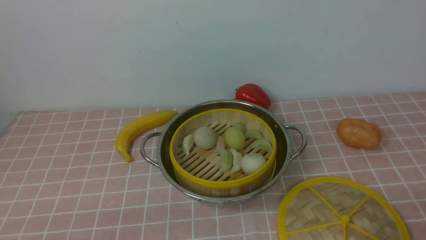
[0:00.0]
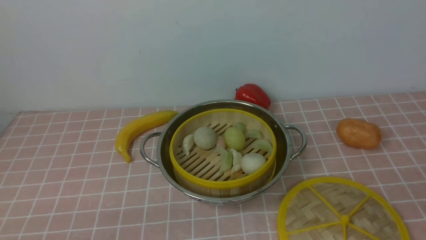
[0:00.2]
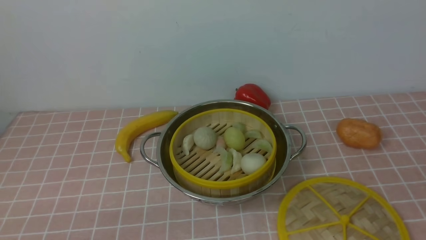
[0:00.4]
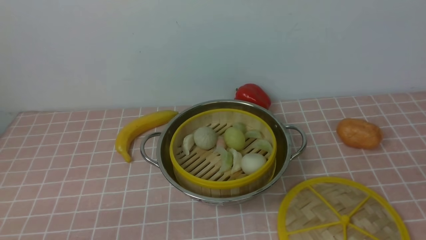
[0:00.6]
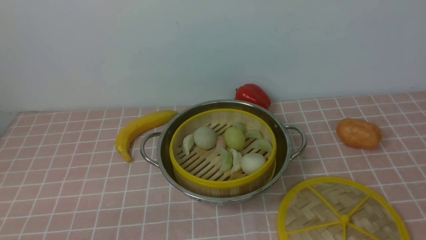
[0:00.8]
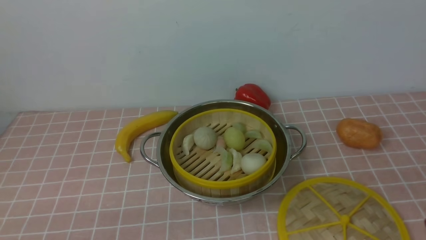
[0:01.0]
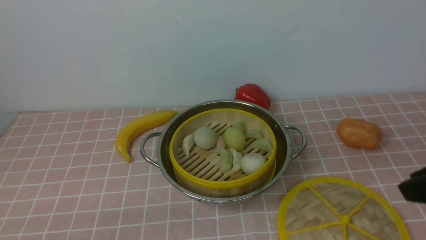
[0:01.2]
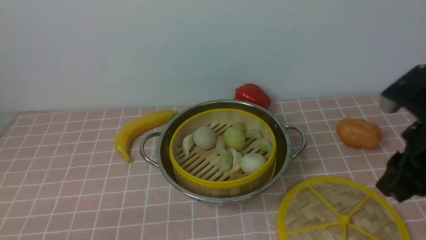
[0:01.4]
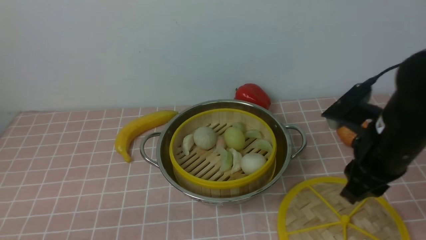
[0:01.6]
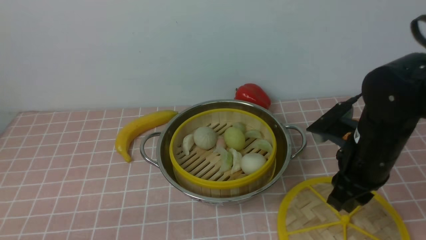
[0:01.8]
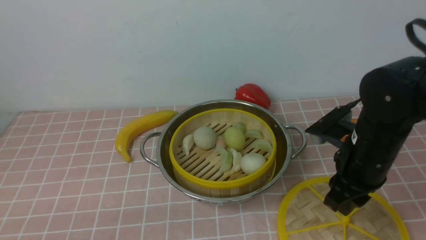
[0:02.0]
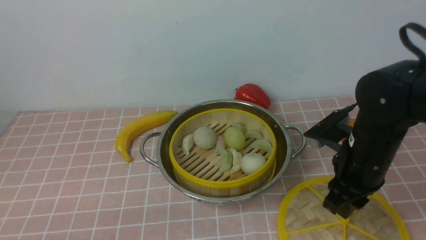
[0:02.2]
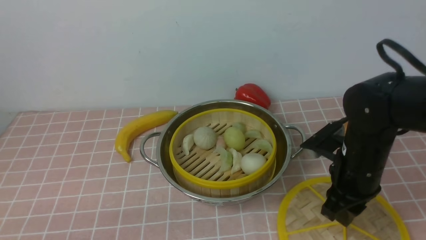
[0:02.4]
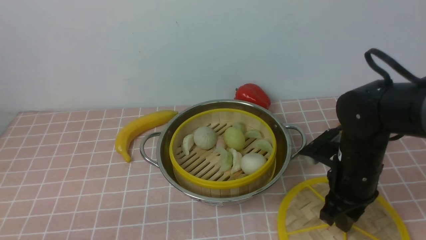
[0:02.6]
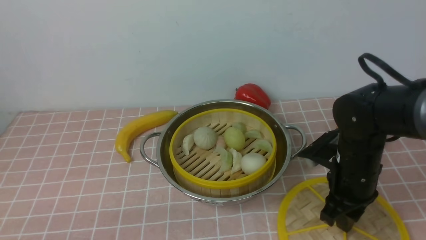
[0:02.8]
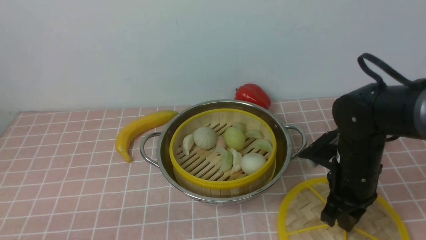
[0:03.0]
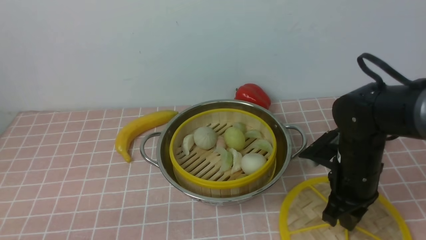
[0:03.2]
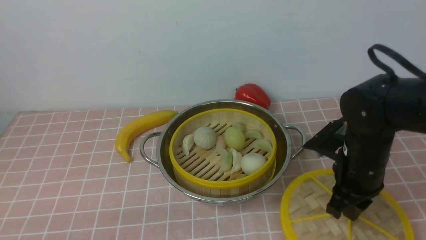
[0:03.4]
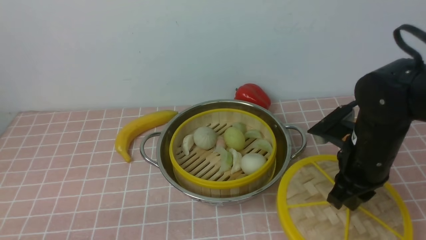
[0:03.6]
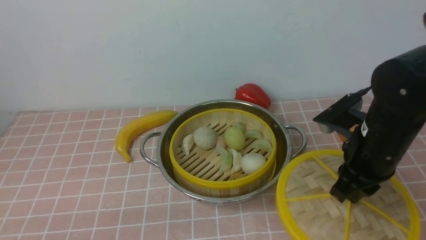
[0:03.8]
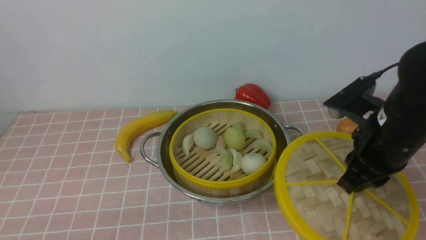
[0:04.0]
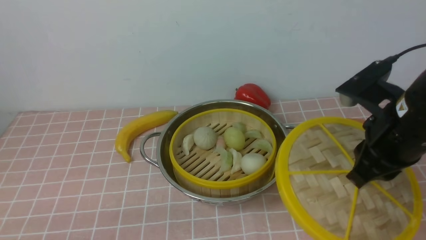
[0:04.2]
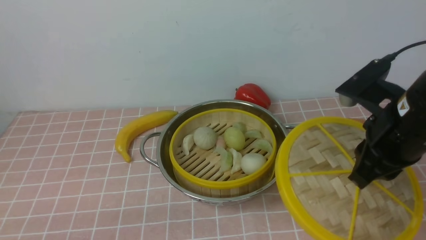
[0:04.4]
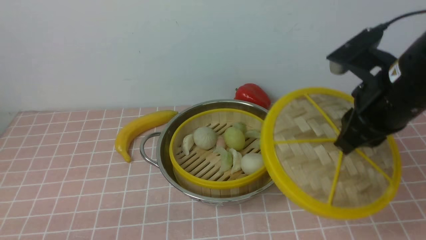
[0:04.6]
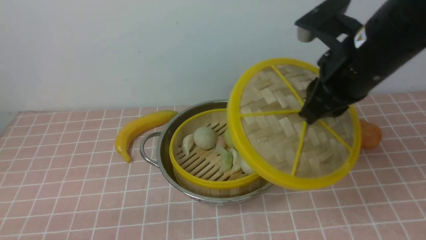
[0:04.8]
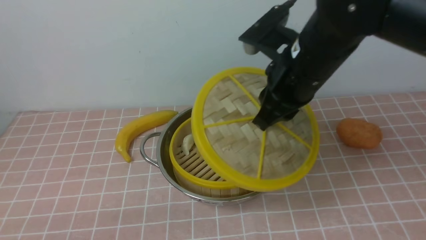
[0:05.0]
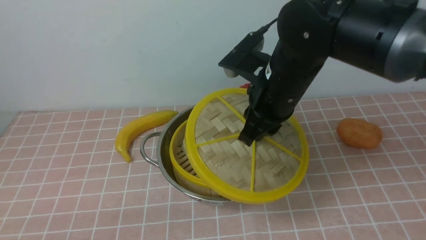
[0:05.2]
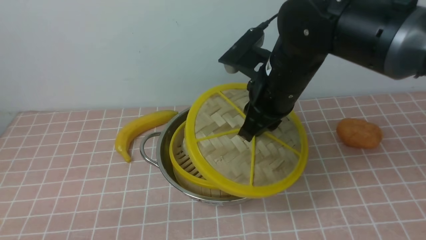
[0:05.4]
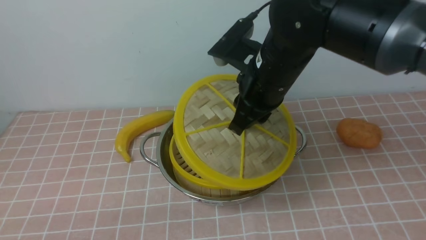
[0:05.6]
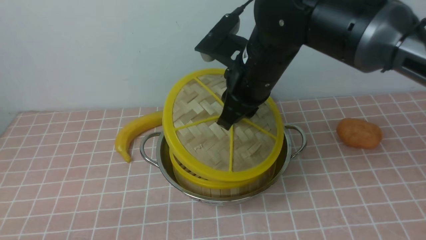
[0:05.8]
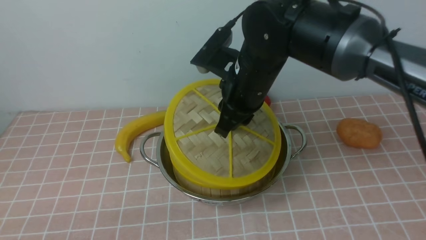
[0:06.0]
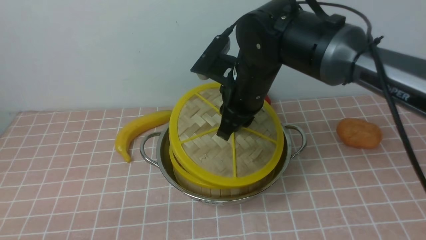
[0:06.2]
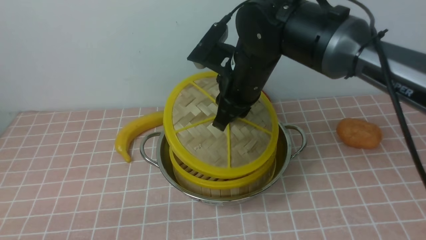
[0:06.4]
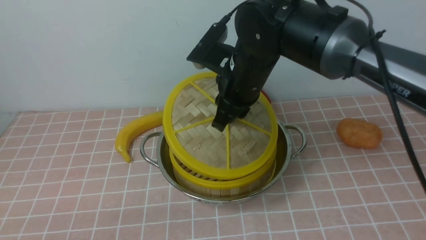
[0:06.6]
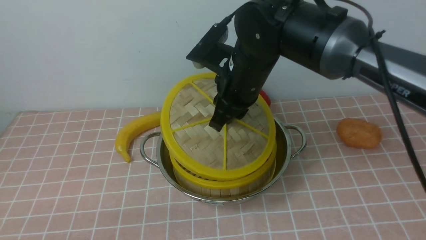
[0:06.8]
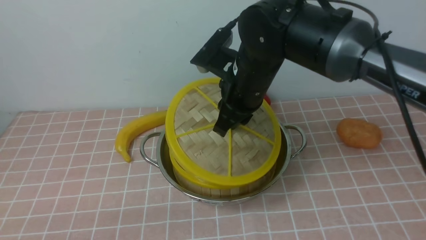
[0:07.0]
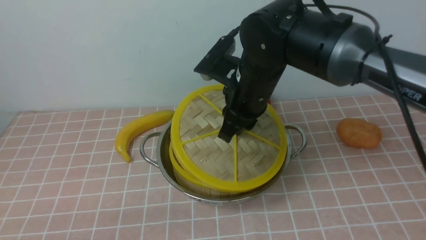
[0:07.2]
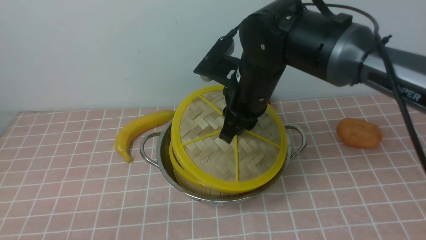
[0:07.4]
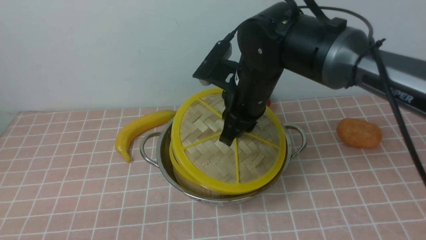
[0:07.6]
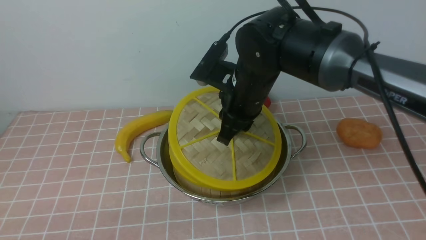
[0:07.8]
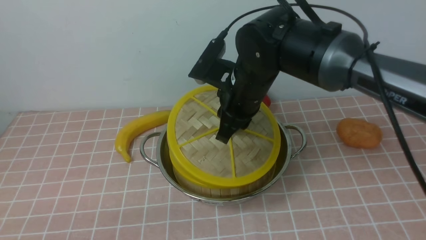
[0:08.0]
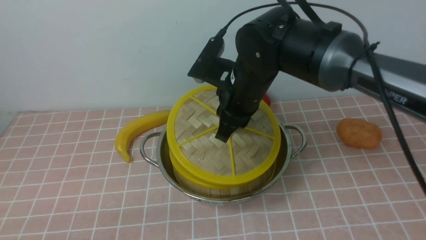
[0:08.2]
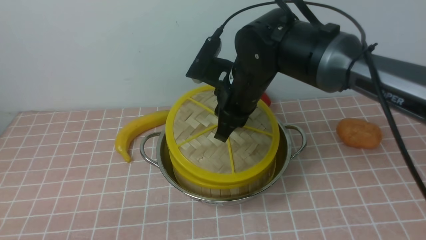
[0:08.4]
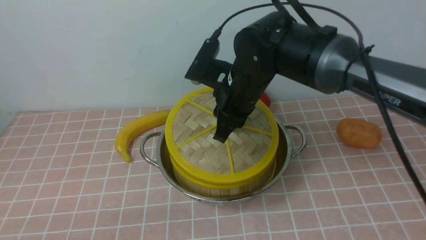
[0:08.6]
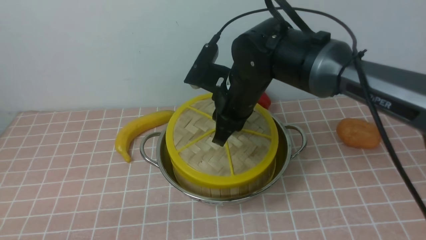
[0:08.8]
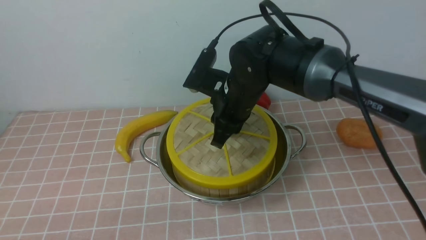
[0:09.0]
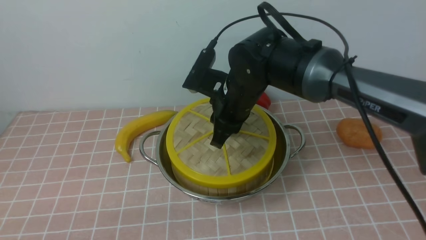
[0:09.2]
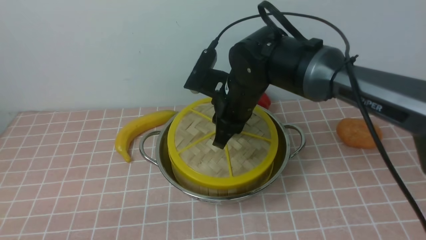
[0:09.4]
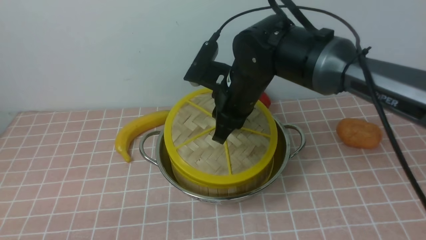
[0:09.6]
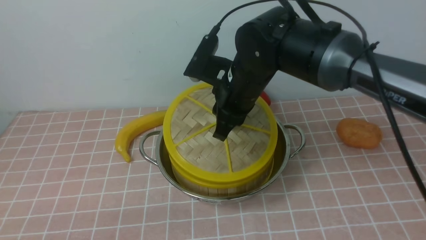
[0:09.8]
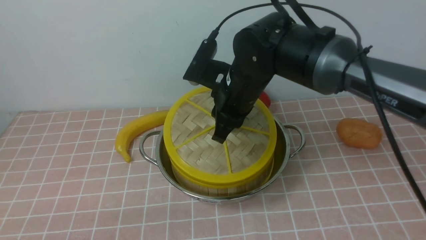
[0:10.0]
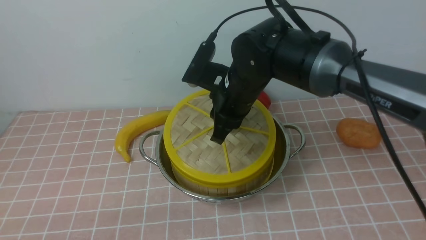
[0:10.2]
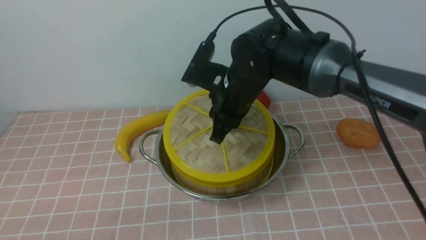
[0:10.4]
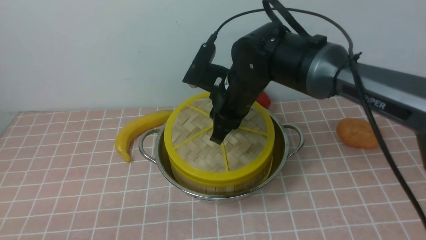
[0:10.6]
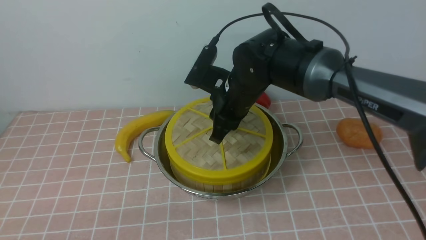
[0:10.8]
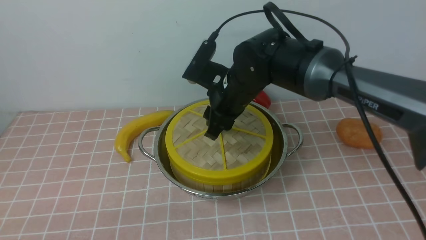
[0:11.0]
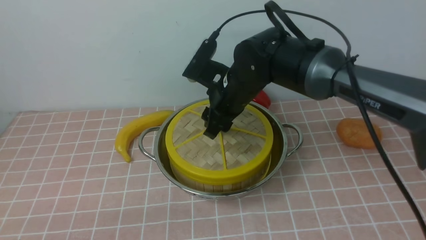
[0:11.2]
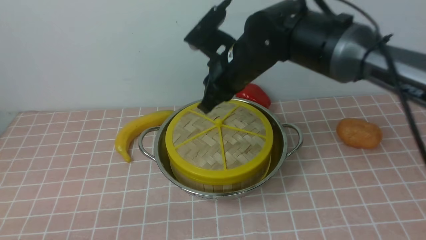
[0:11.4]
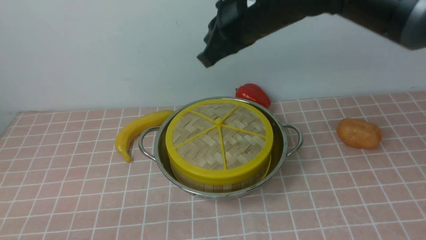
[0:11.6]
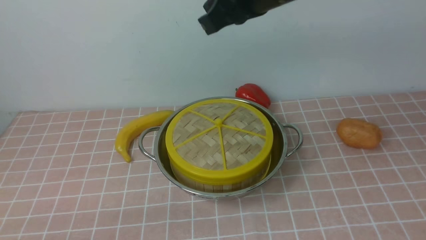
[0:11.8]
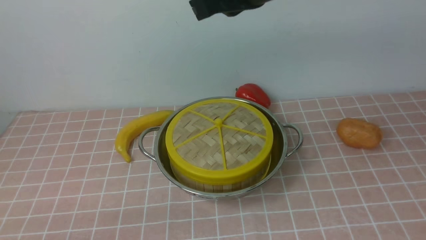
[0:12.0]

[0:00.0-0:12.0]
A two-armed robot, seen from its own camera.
Task of the whole recording: place the steamer in the pot on the pink tablecloth, and put the lid on the steamer.
Step, 0:00.0 to 0:03.4: use the right arm to lift the lid of the steamer.
Step, 0:03.6 to 0:11.2: use the right arm to place the steamer lid on the steamer.
0:00.0 to 0:01.6: The right gripper travels forward, upward and to the left by some 20 cm.
0:01.6 to 0:03.0: The right gripper is displaced downward by approximately 10 cm.
0:03.0 to 0:04.4: The right gripper is displaced upward by approximately 15 cm.
0:04.4 to 0:06.0: The right gripper travels to the left and forward by roughly 20 cm.
0:06.0 to 0:09.0: The grippers make only small movements.
0:09.0 to 0:10.4: The grippers stay close to where they were, moving slightly.
0:10.4 to 0:12.0: The right gripper goes about 20 cm upward, and closes its fingers.

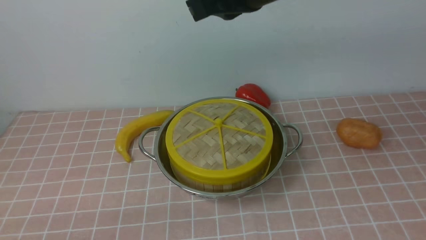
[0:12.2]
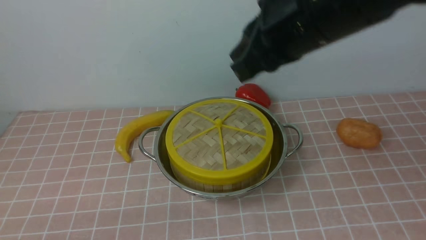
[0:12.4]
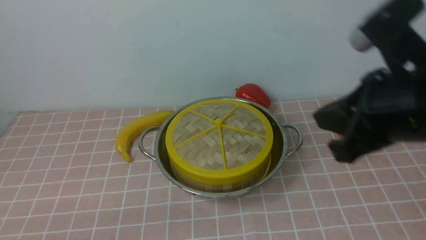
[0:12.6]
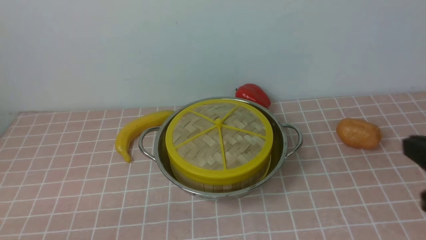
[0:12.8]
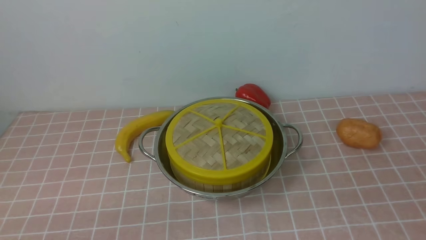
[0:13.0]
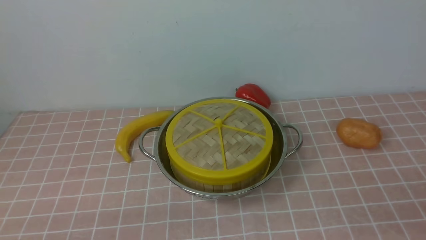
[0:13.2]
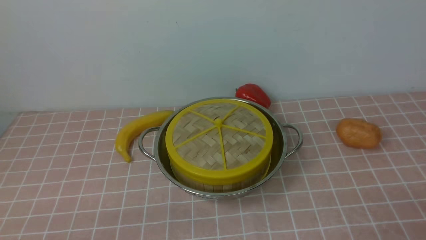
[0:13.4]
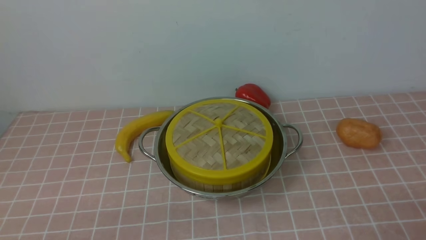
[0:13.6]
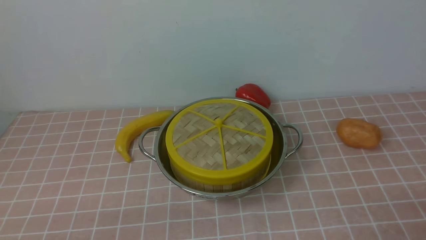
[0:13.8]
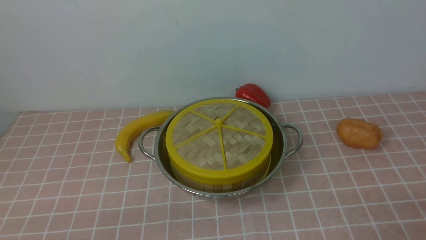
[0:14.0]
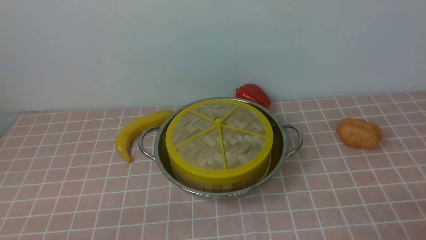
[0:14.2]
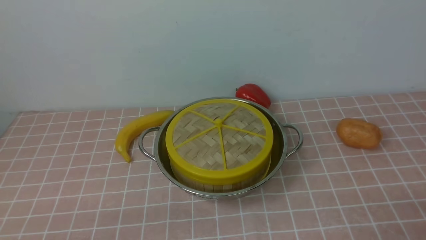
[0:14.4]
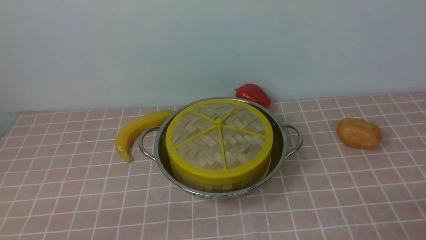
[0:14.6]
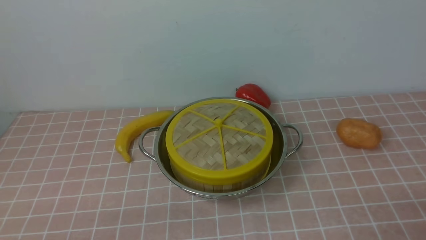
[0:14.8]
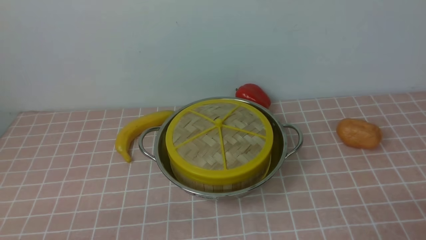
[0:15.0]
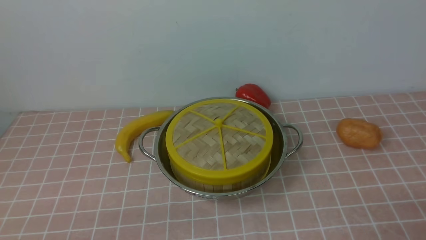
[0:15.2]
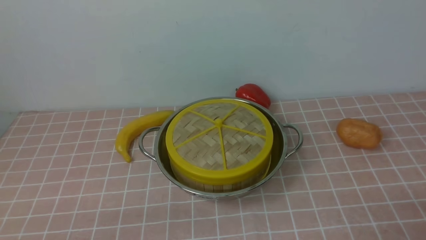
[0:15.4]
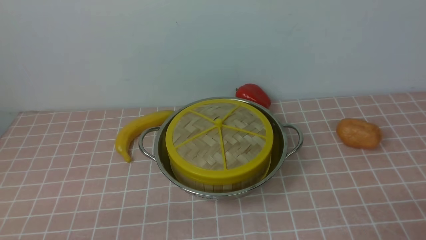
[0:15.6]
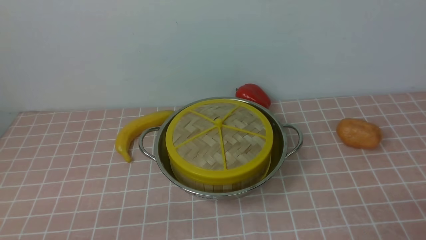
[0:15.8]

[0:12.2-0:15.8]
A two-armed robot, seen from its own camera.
Task of the whole recording: place the steamer in the pot on the pink tablecloth, and put the lid on the steamer.
0:12.2 to 0:14.0: The right gripper moves downward, backward and to the right, about 40 cm, and opens.

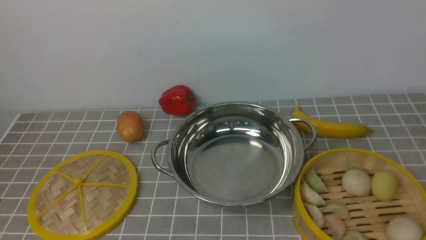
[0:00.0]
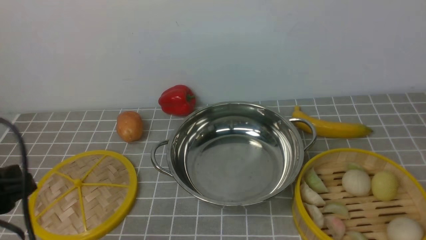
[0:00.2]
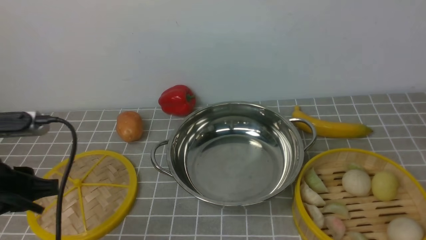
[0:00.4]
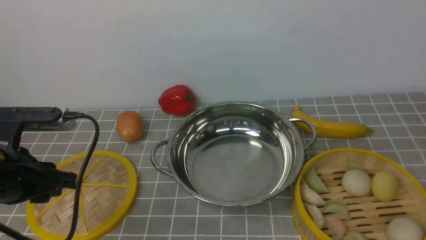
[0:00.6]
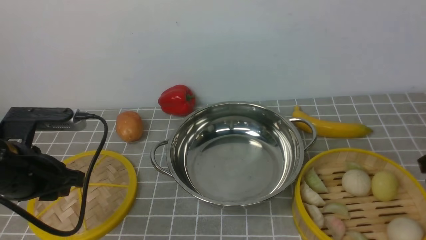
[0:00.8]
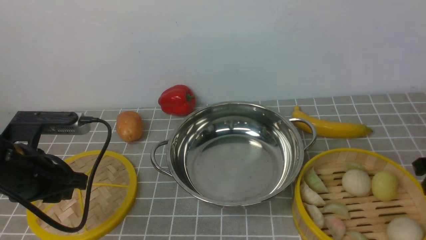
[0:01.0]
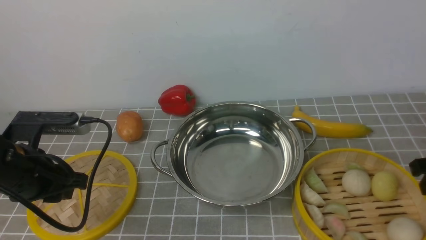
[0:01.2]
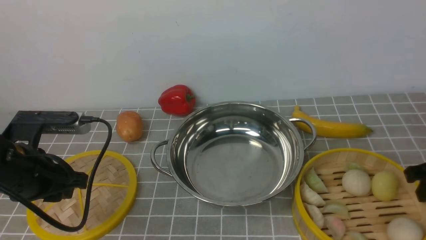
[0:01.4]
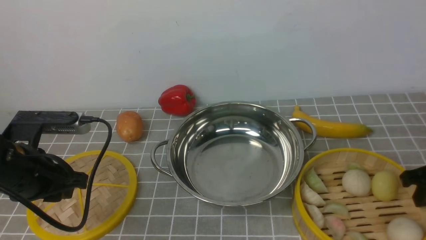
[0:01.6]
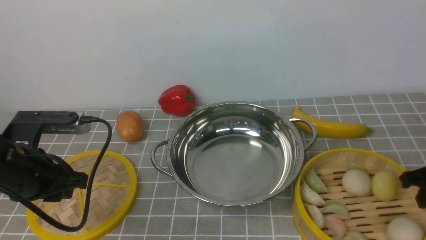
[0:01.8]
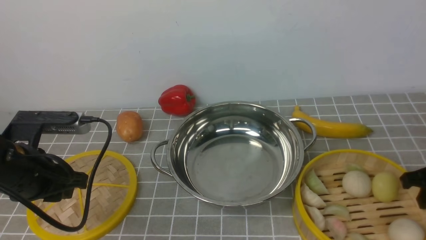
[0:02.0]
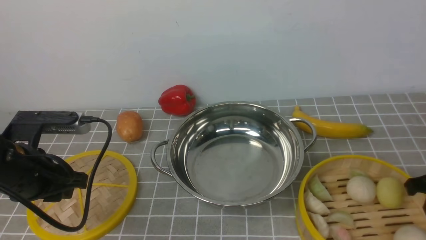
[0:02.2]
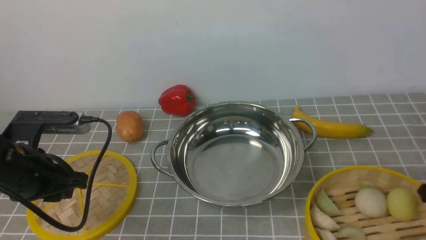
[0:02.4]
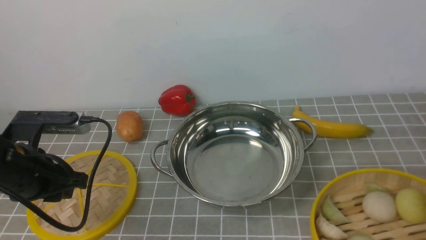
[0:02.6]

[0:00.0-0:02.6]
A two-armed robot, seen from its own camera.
Task of the whole recording: place the steamer in the pot on the grey tablecloth, and put the lid on the steamer.
Step, 0:00.0 to 0:02.6: use the right arm to lift the steamer closest to it.
0:00.0 to 0:01.2: The left gripper is displaced forward by about 15 cm.
0:01.2 to 0:02.6: The right gripper closes up.
